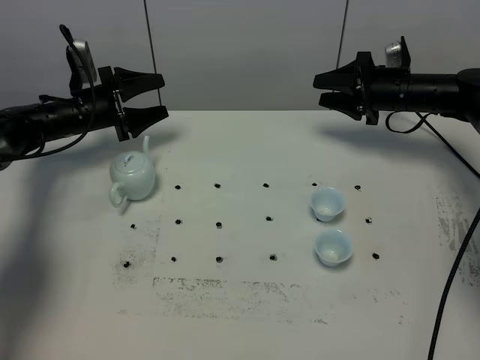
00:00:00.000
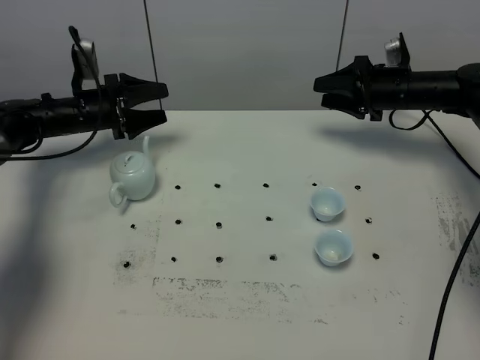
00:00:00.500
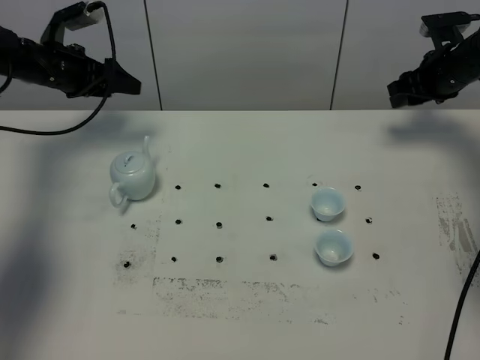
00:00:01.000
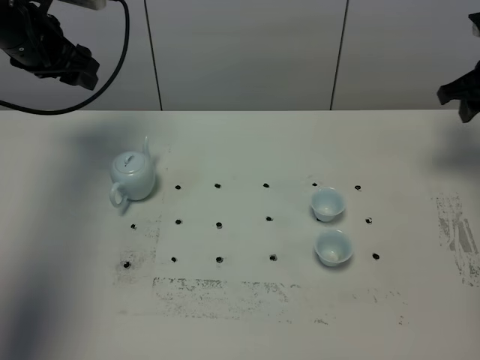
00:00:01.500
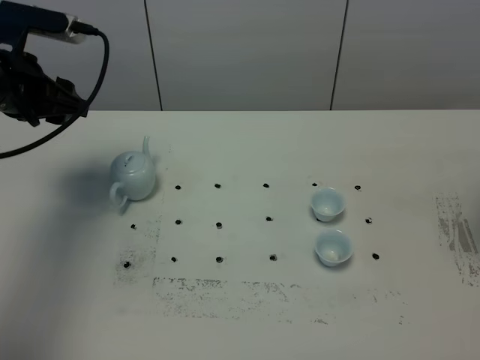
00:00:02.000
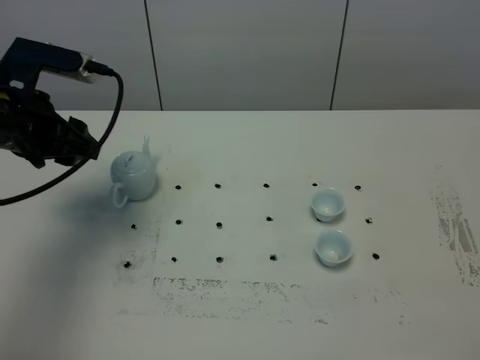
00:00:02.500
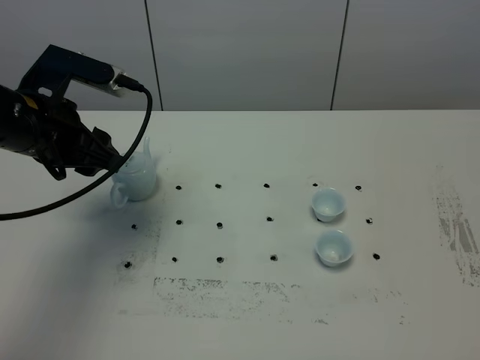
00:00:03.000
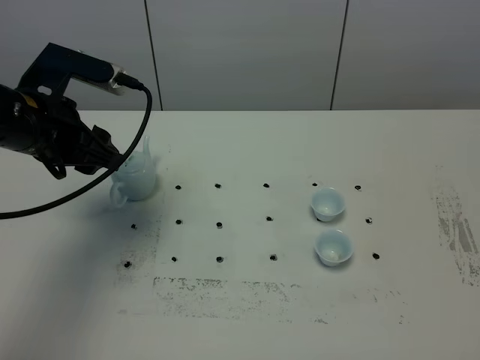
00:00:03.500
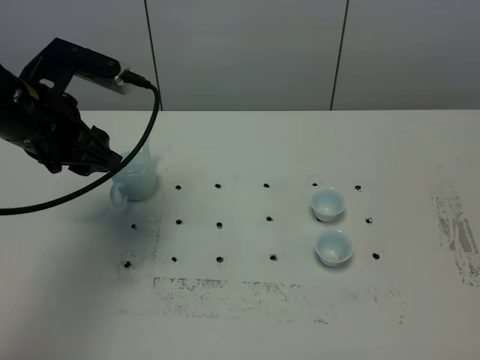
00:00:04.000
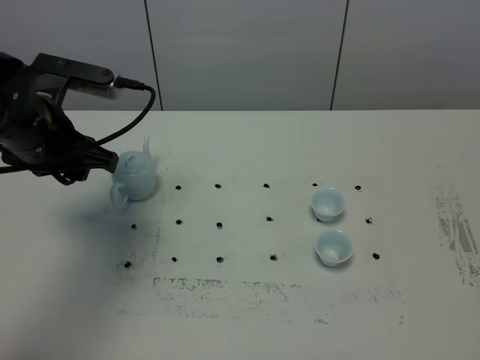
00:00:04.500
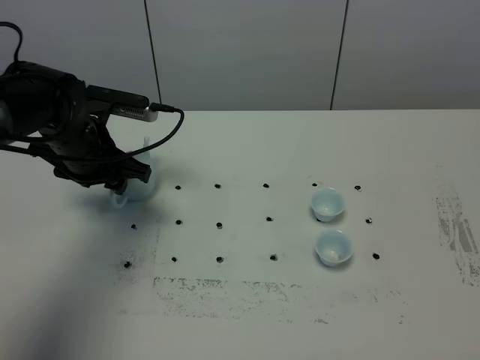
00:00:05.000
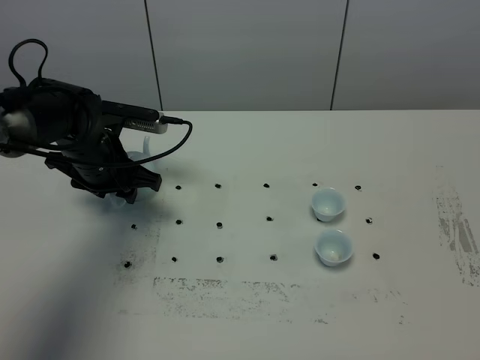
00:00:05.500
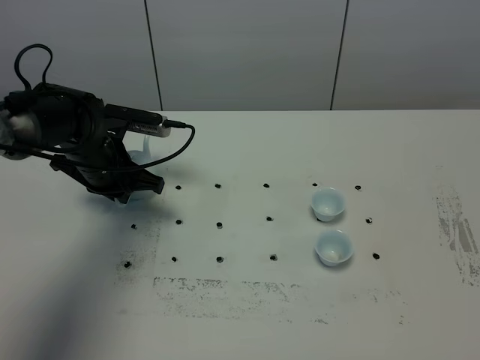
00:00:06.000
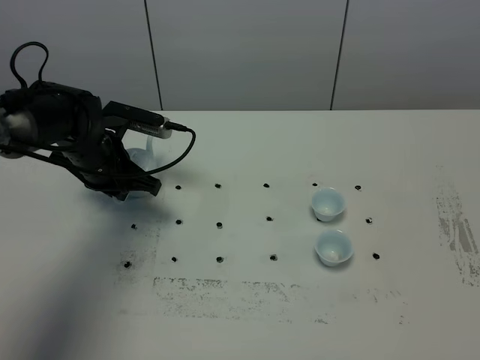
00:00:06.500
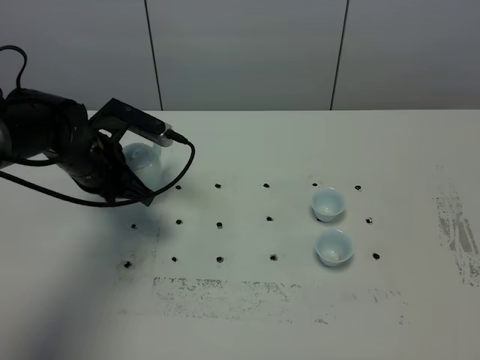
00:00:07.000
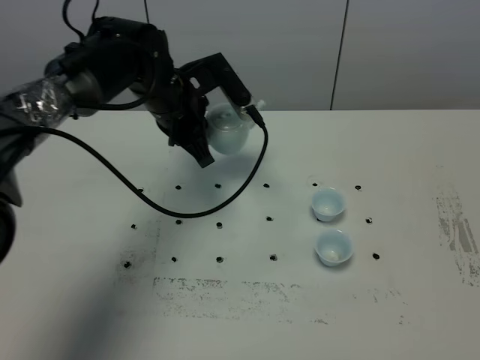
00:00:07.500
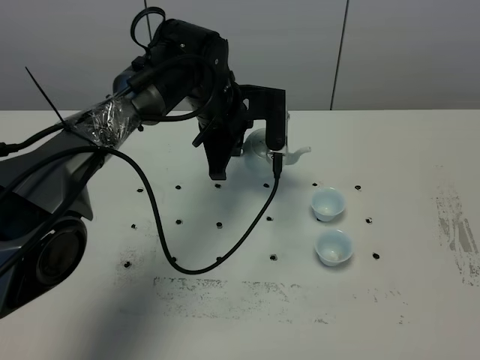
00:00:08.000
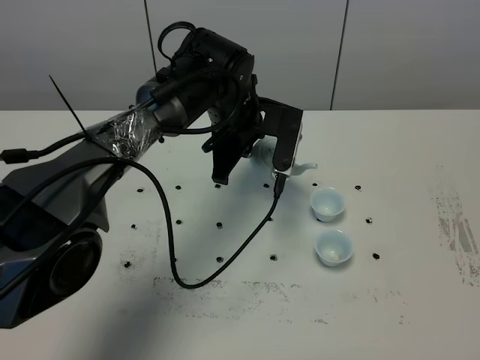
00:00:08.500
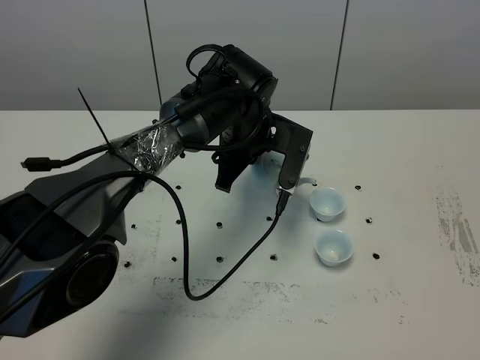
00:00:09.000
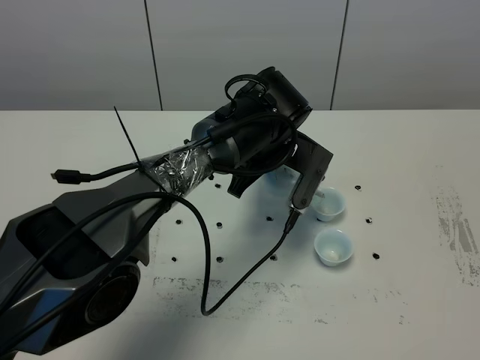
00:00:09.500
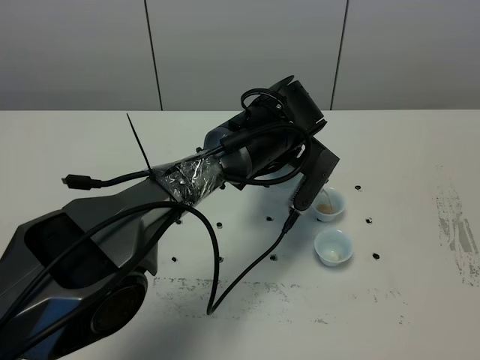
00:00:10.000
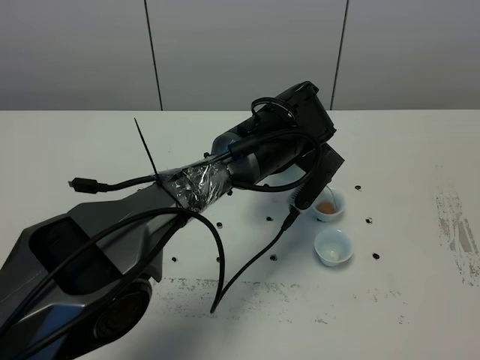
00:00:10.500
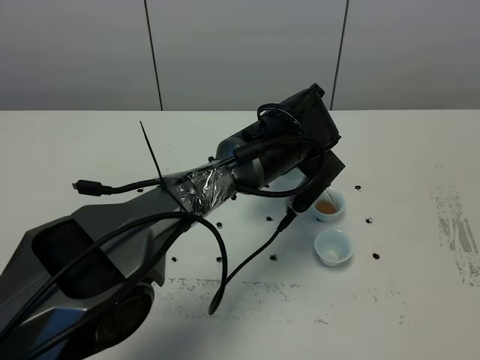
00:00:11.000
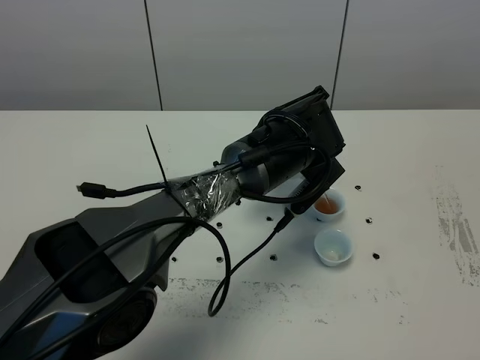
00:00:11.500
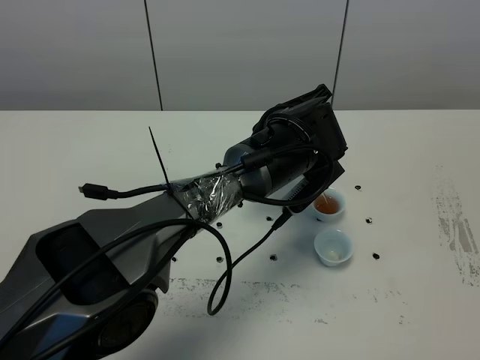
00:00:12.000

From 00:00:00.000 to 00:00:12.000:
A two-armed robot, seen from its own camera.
Task of the whole recording: grasp the blue porcelain teapot and pour the tea into the two blue porcelain teacups one by one, put the blue porcelain teapot back in its original place.
Step, from 00:00:00.000 to 00:00:06.500: Pick up the teapot with the left gripper.
From 00:00:00.000 to 00:00:02.000: The left gripper goes roughly 25 cm upward and backward. The right gripper goes about 30 cm backward and upward, and closes up.
From 00:00:02.000 to 00:00:04.000: The left gripper is displaced to the right and backward by about 10 cm.
From 00:00:04.000 to 00:00:06.000: The left gripper travels downward and forward by approximately 15 cm, and closes its fingers.
From 00:00:06.000 to 00:00:08.000: The left gripper heads to the right, covering approximately 15 cm.
From 00:00:08.000 to 00:00:10.000: The left gripper goes some 10 cm to the right.
From 00:00:10.000 to 00:00:12.000: There are only small adjustments of the grippers.

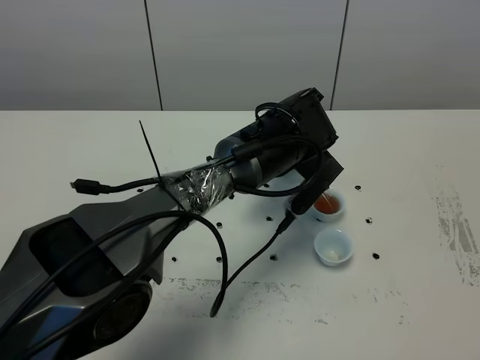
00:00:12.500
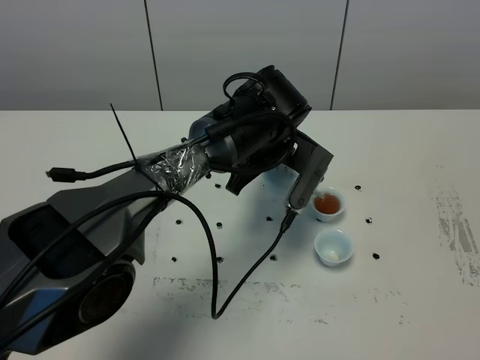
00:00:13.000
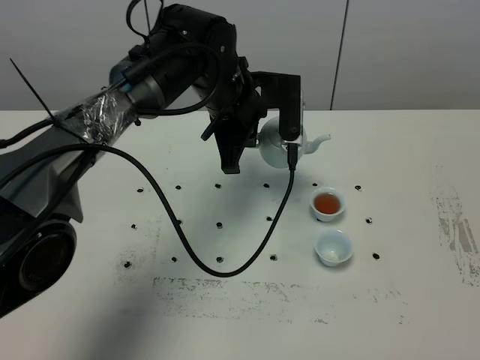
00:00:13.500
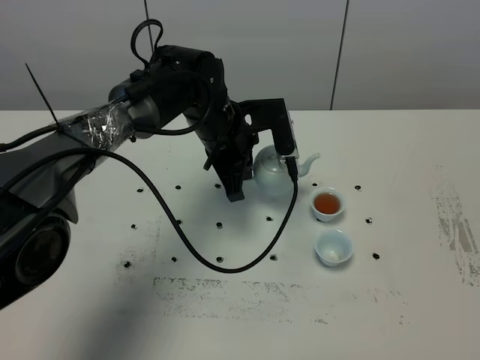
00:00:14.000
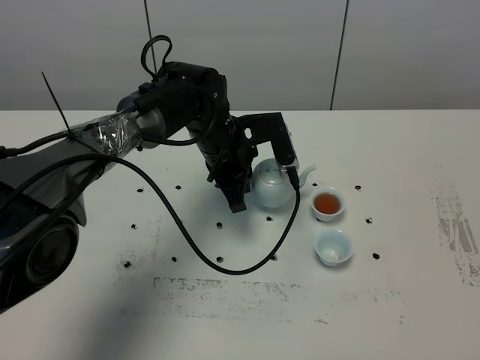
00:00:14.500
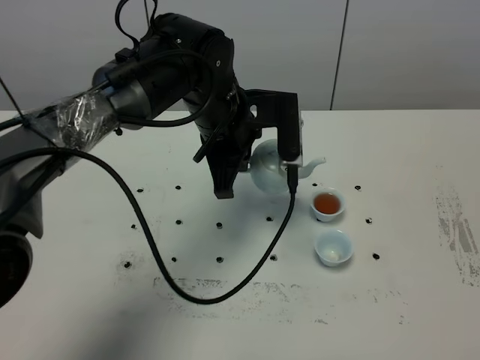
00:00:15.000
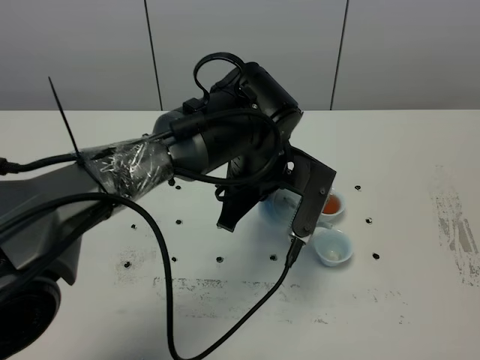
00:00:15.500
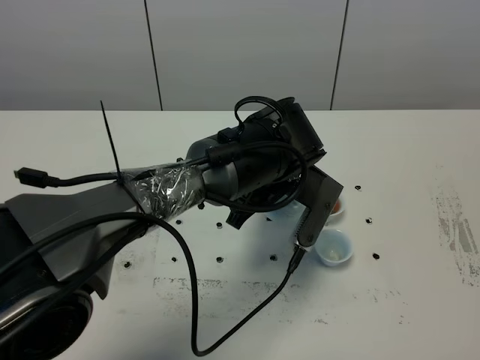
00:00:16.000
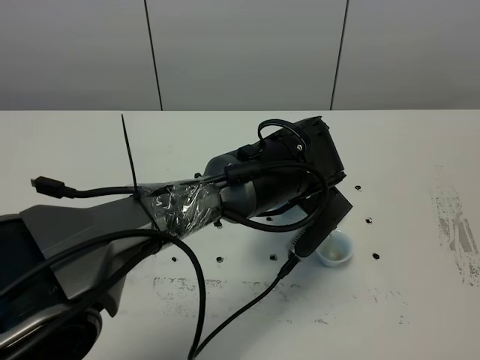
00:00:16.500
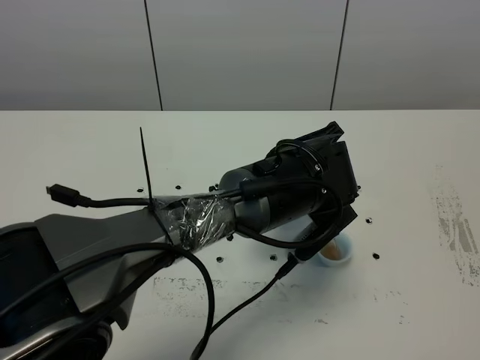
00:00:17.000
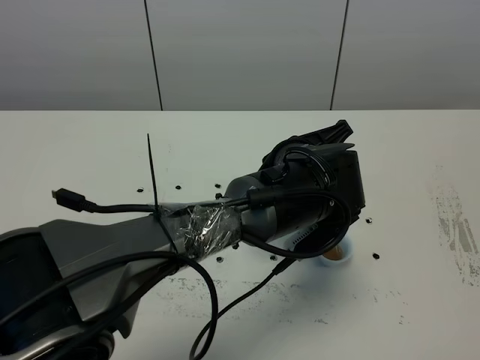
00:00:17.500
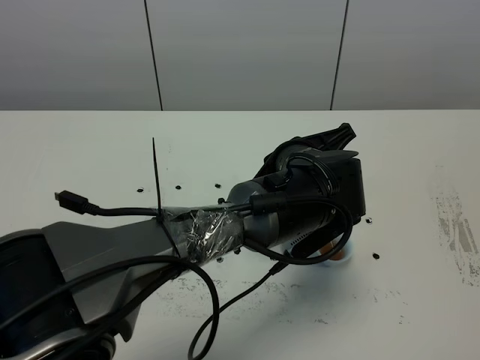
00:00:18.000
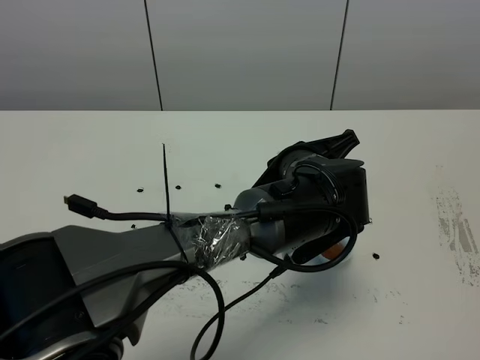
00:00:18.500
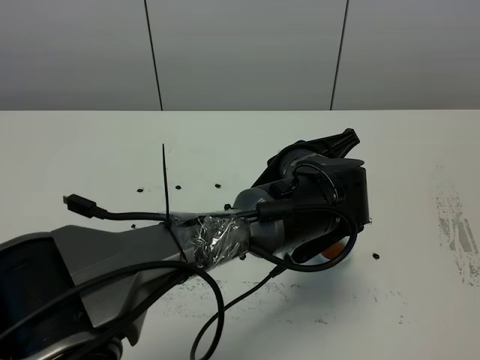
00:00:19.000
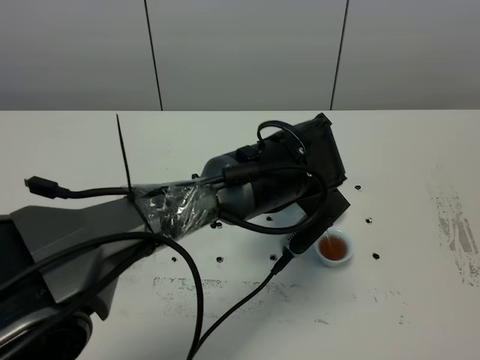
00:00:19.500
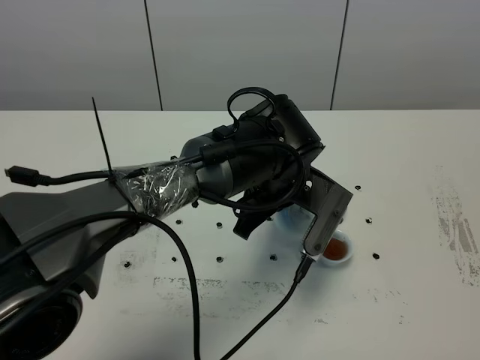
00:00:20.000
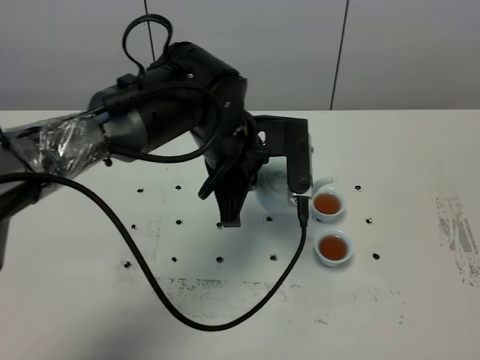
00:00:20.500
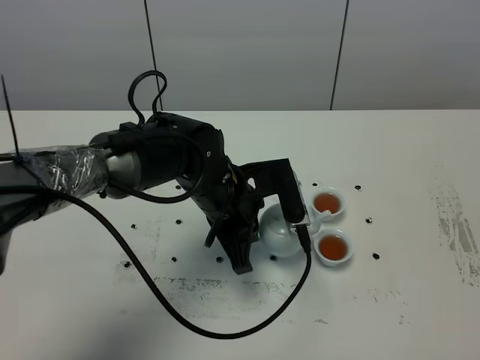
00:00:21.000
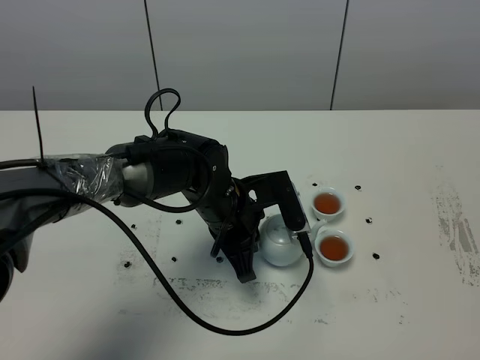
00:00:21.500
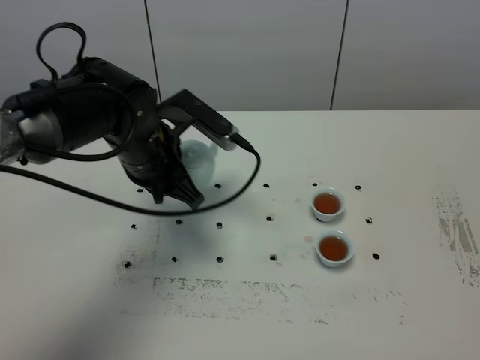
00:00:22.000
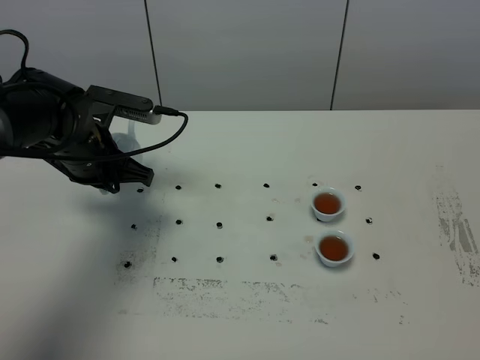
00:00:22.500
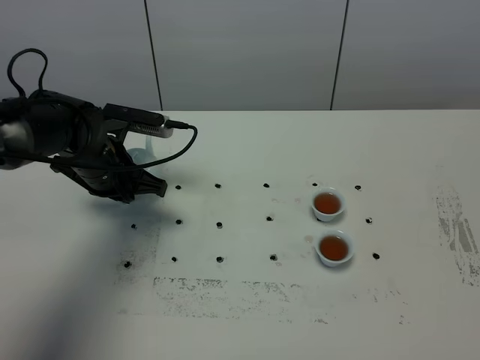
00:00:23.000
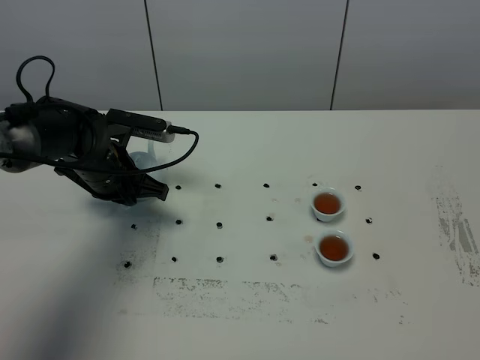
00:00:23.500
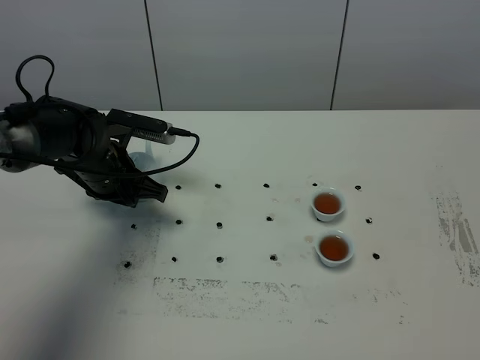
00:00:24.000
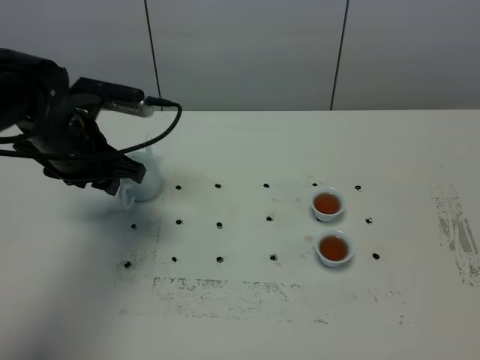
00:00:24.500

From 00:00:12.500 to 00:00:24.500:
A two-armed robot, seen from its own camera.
Task of the whole recording: grasp the blue porcelain teapot and pour the tea into the two blue porcelain teacups one by one, put the blue porcelain teapot back in its original place.
Step, from 00:00:13.500 to 00:00:20.000: Pour tea into the teacup with the left gripper.
From 00:00:12.500 to 00:00:14.500: The left gripper travels to the left by approximately 10 cm.
From 00:00:14.500 to 00:00:16.500: The left gripper shifts approximately 15 cm backward and to the right.
From 00:00:18.500 to 00:00:20.500: The left gripper is displaced to the left by about 10 cm.
From 00:00:20.500 to 00:00:22.500: The left gripper travels to the left by approximately 20 cm.
From 00:00:22.500 to 00:00:24.500: The left gripper opens up.

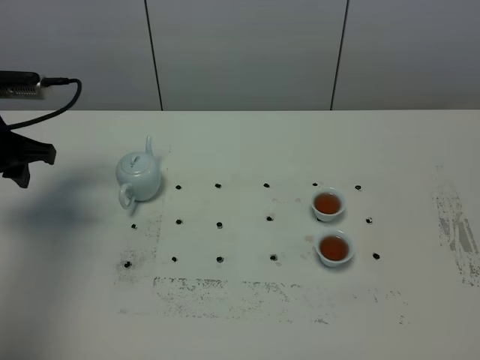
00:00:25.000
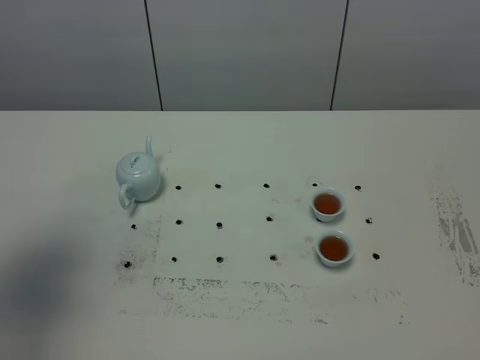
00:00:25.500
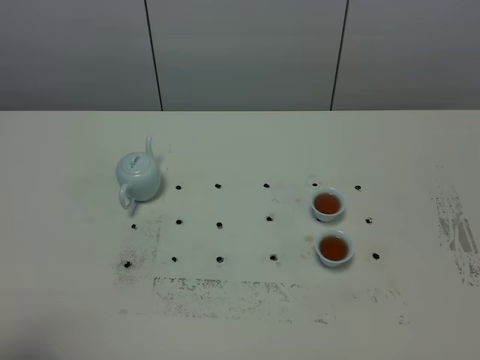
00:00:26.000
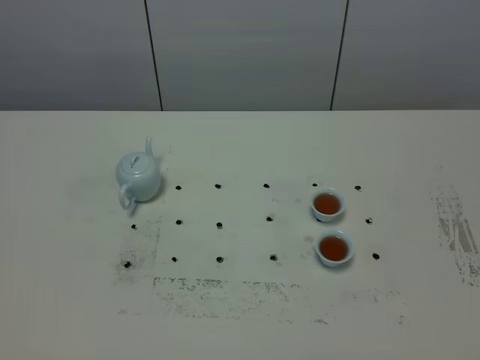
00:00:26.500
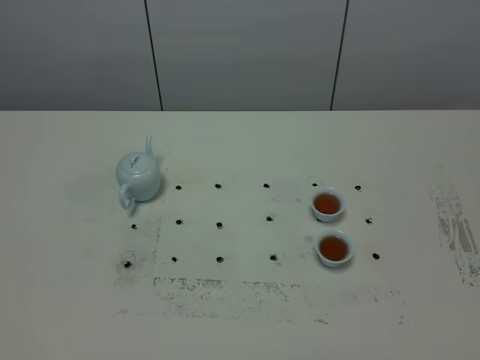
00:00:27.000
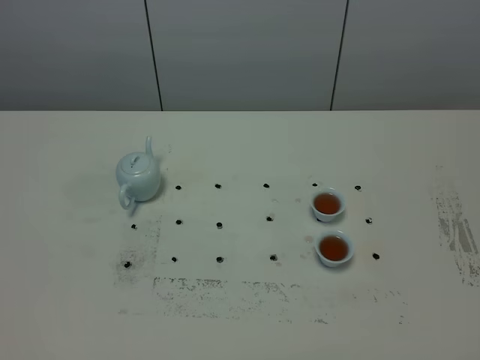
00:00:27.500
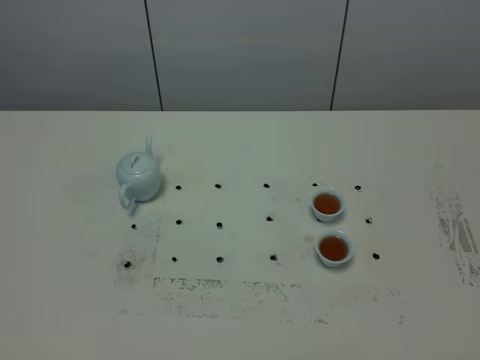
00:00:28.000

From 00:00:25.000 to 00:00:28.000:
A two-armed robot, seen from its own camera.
Task of the whole recording: grasp the blue porcelain teapot and pour the tea into the two blue porcelain teacups one by one, put the blue porcelain teapot back in its original place.
From 00:00:25.000 to 00:00:26.500: The left gripper travels backward by roughly 35 cm.
From 00:00:26.500 to 00:00:28.000: Both grippers stay about where they are.
